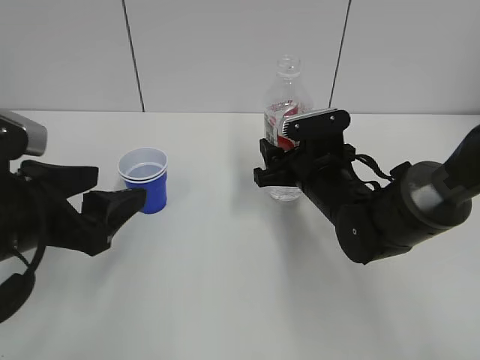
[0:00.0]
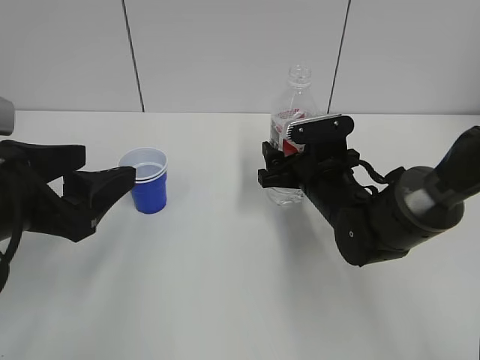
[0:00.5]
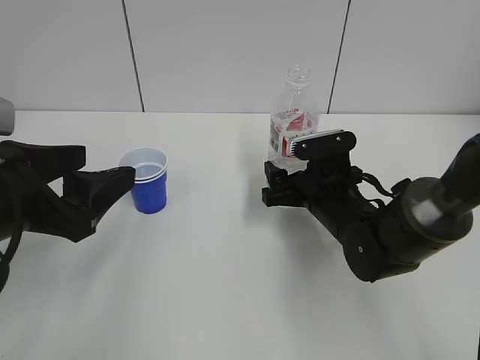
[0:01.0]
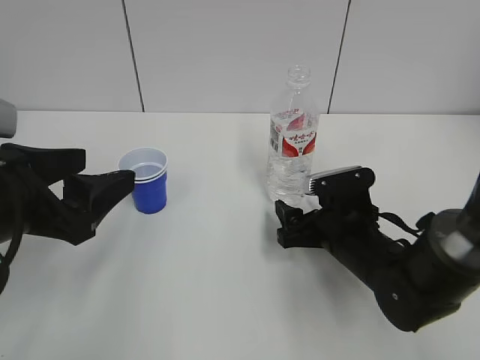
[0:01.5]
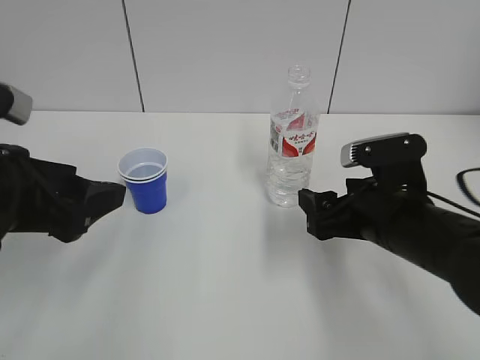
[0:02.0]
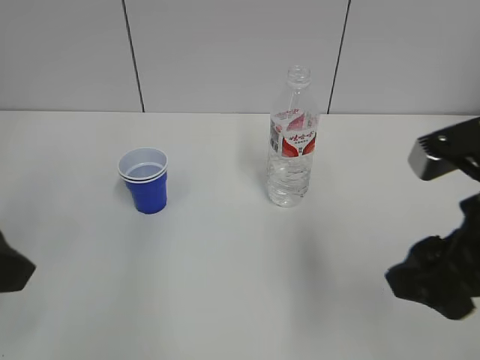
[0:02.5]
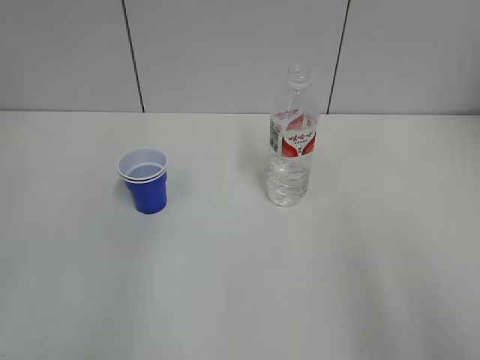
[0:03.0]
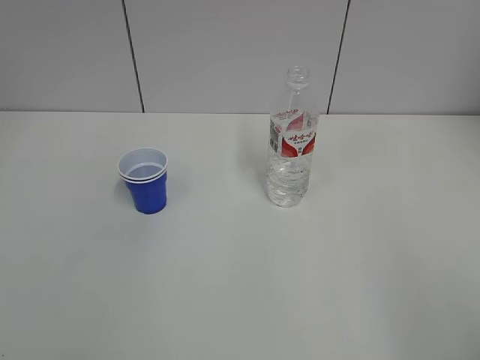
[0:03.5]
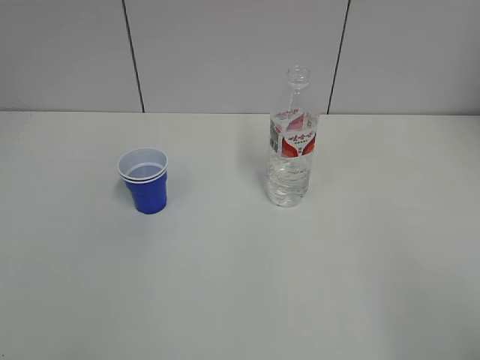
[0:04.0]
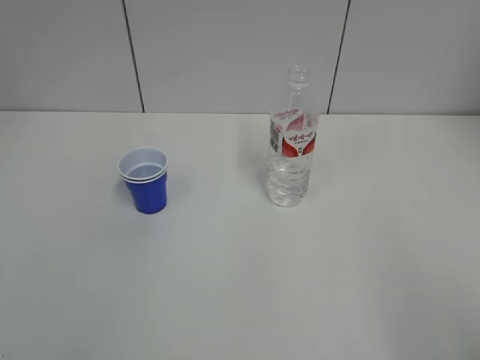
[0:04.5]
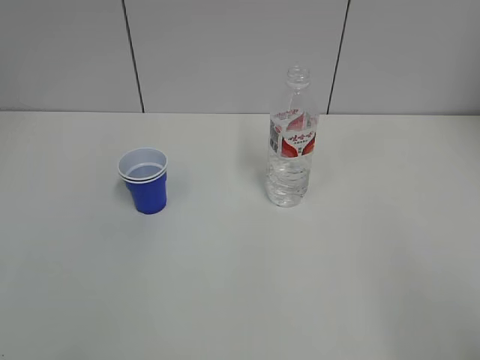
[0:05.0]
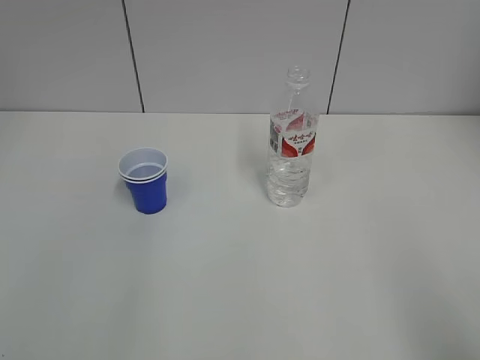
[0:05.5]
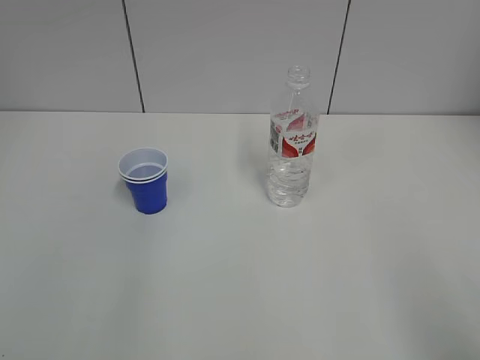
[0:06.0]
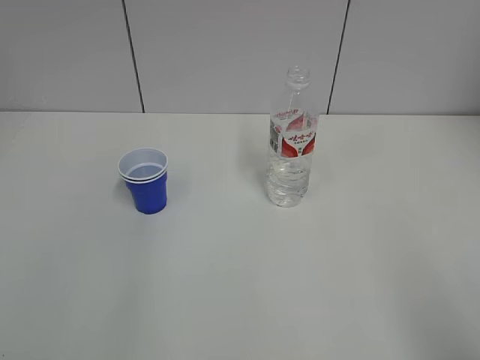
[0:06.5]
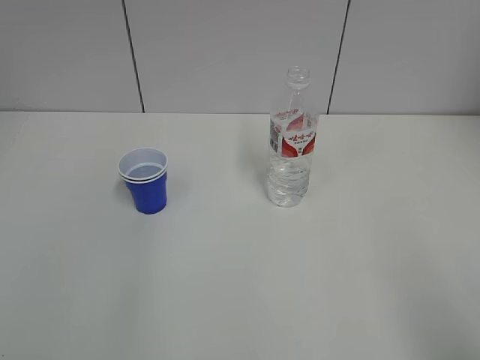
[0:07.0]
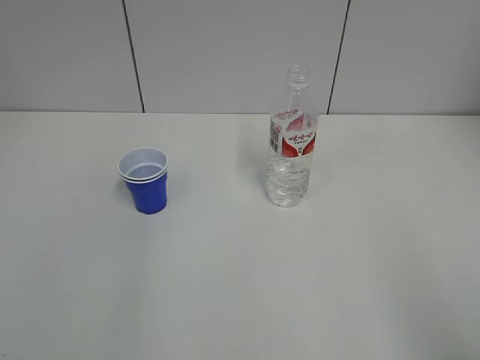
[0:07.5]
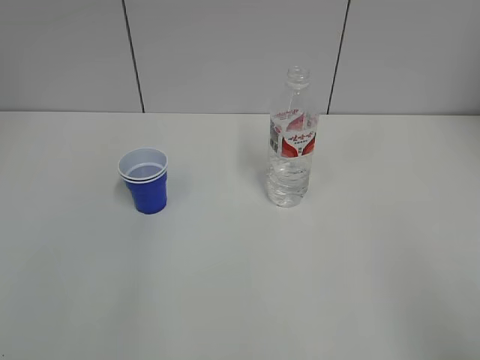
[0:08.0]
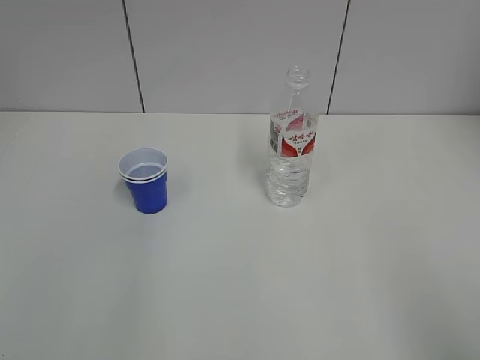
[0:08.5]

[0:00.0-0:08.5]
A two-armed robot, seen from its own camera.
0:00.0 to 0:02.0: The right gripper heads backward, covering some 10 cm, and opens.
0:02.0 to 0:04.0: The right gripper travels backward, to the right and upward by roughly 30 cm, while the left gripper moves backward and to the left, about 20 cm.
0:06.5 to 0:08.5: Both grippers stay put.

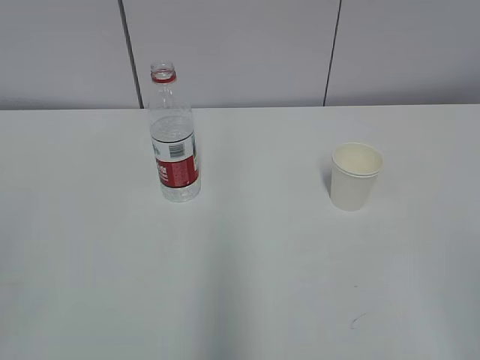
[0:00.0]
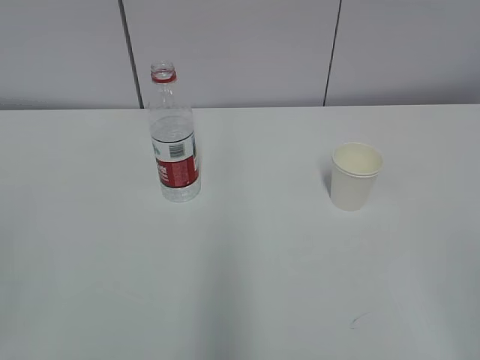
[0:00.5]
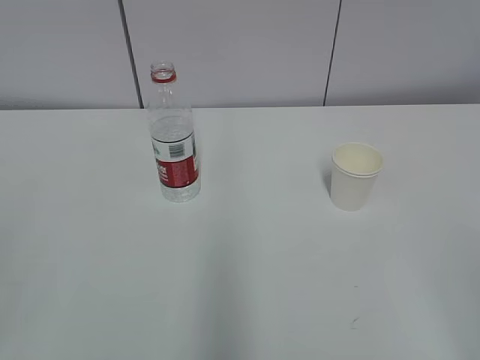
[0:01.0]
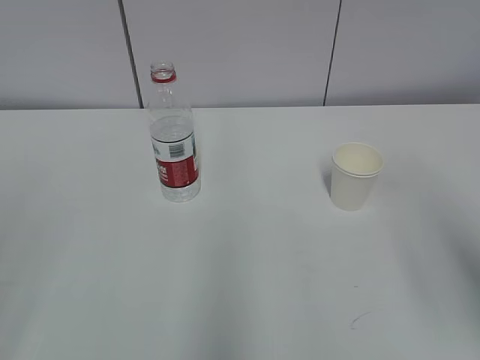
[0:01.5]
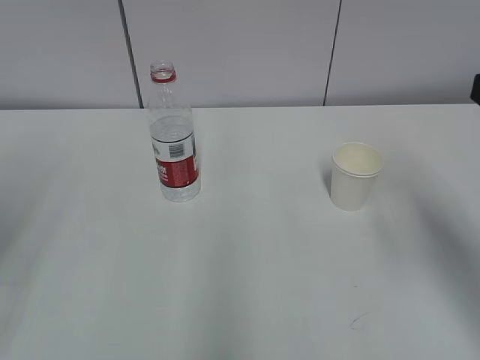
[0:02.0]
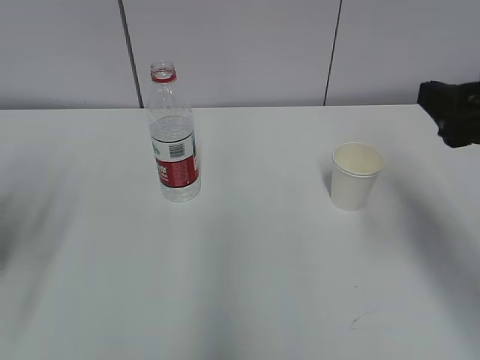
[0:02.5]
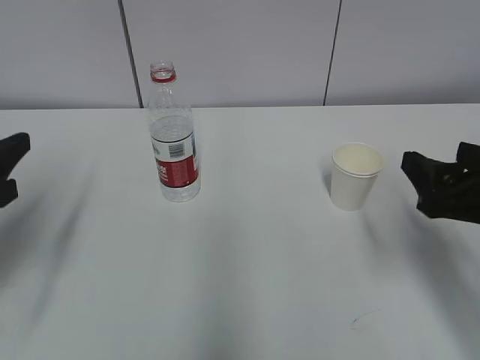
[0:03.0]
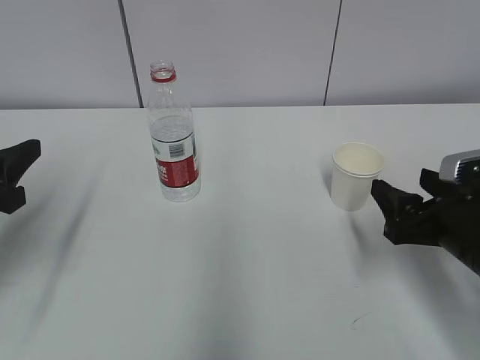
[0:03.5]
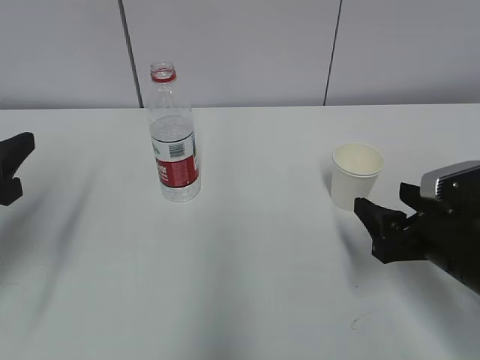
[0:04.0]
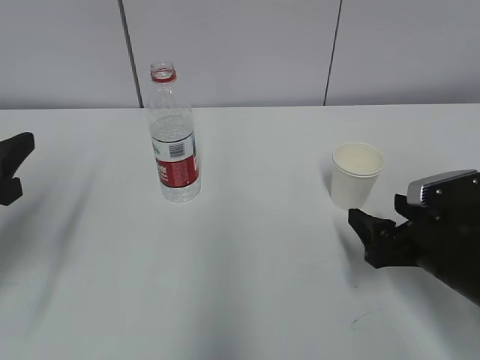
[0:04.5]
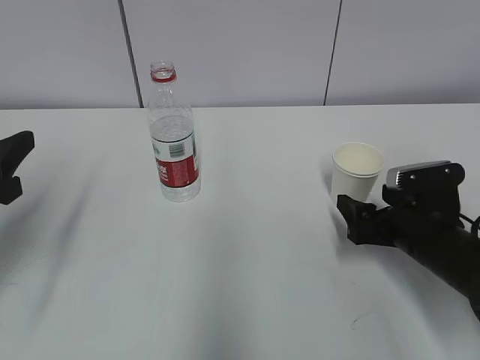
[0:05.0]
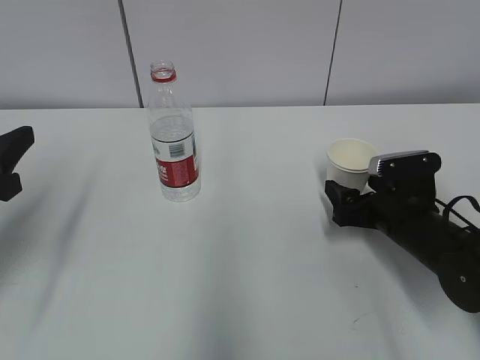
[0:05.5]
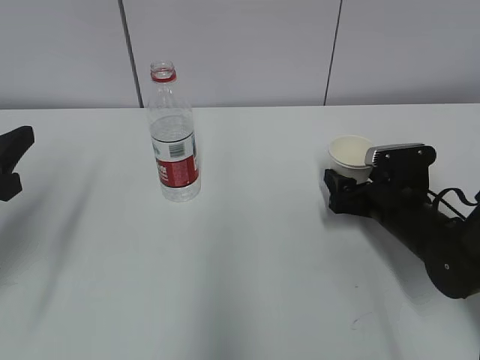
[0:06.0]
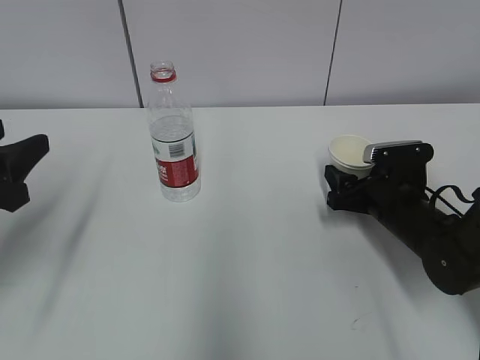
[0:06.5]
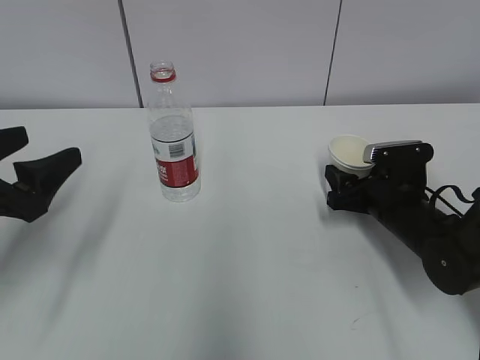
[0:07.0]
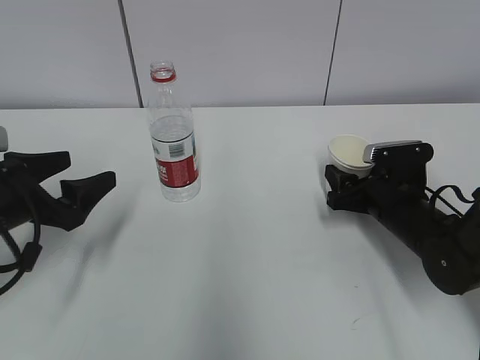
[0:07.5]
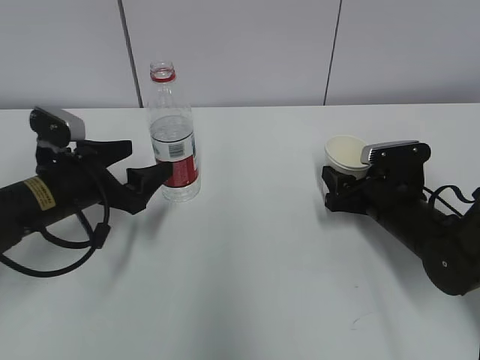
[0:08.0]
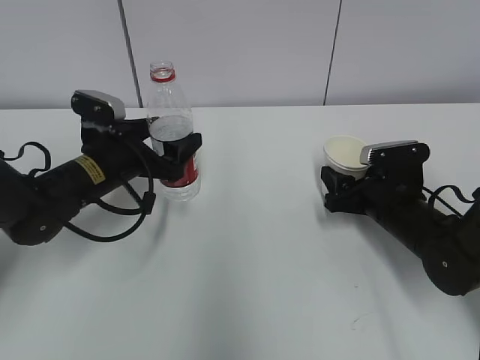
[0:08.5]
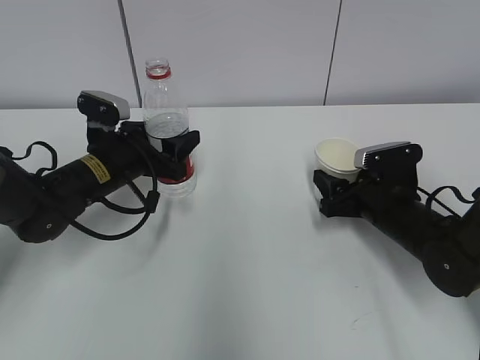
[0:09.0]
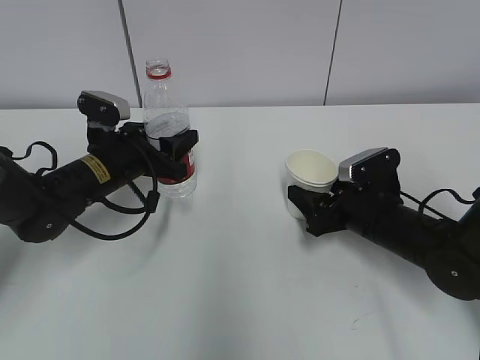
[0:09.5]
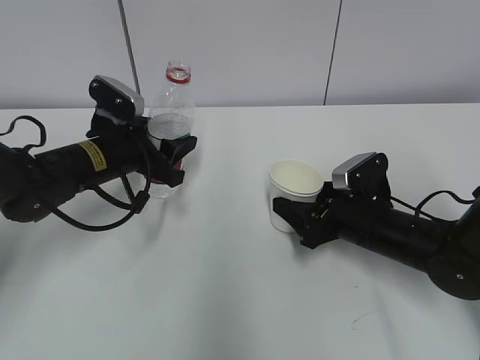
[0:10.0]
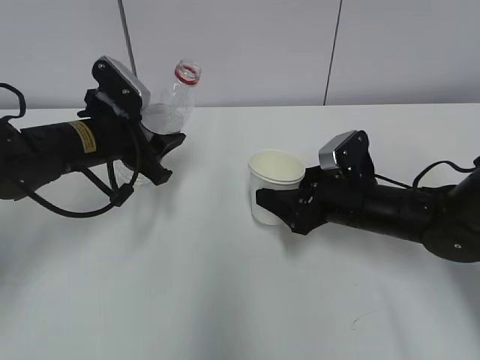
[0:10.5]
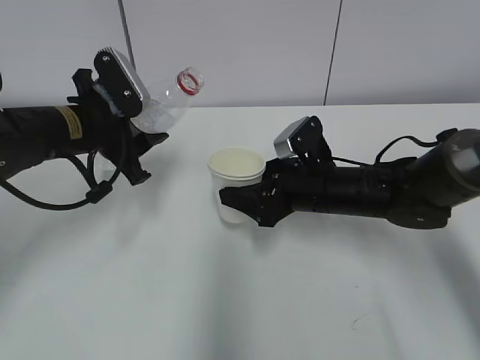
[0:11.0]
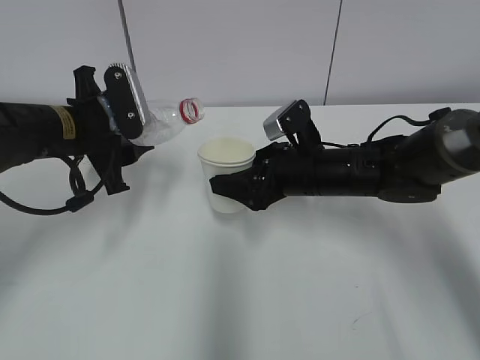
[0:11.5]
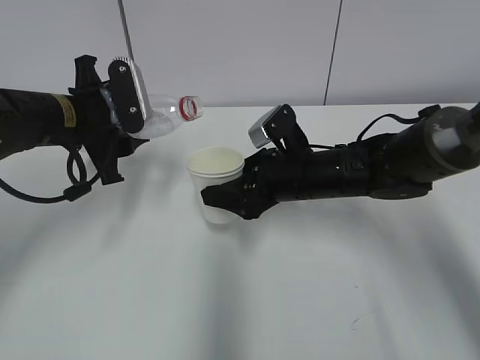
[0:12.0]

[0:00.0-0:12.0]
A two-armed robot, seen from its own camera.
Step, 0:00.0 to 0:07.0: Grab the paper cup with the right hand.
Step, 0:08.0 to 0:11.5: Lift the paper cup with the right hand.
0:02.0 to 0:04.0: The left gripper is displaced downward and forward by approximately 15 cm; the right gripper travels downward by roughly 20 cm.
0:04.0 to 0:06.0: The right gripper shifts roughly 10 cm forward and downward, and opens.
0:06.0 to 0:08.0: The left gripper goes some 15 cm forward, downward and to the right, and opens, while the right gripper closes its fingers.
0:08.0 to 0:10.0: The left gripper moves forward, some 5 cm, and closes its fingers.
0:10.0 to 0:12.0: The right gripper heads to the left and upward, covering roughly 10 cm, while the left gripper goes approximately 5 cm upward.

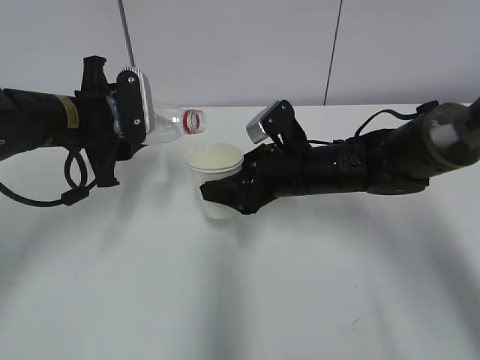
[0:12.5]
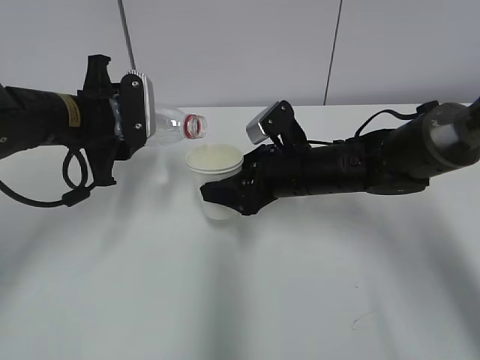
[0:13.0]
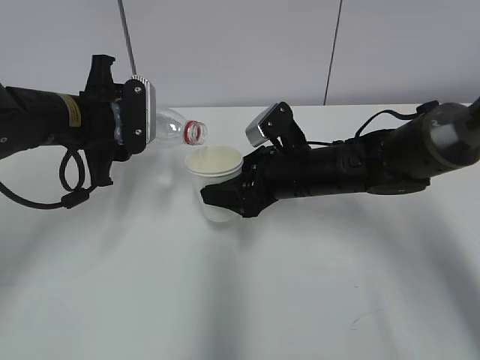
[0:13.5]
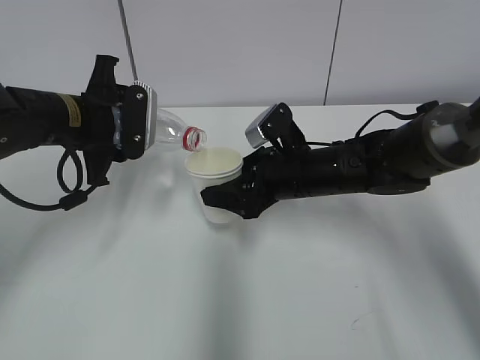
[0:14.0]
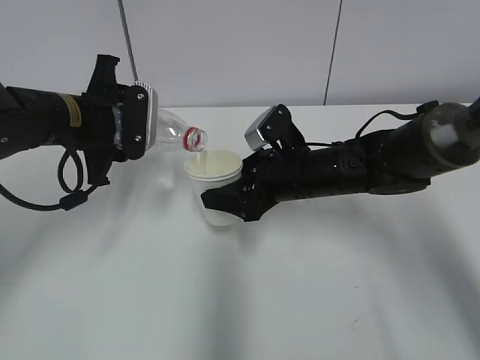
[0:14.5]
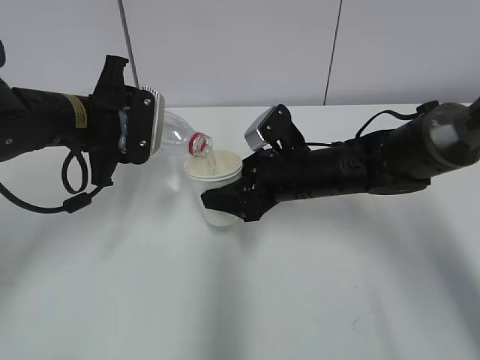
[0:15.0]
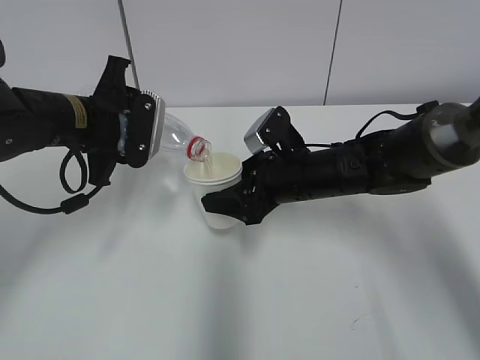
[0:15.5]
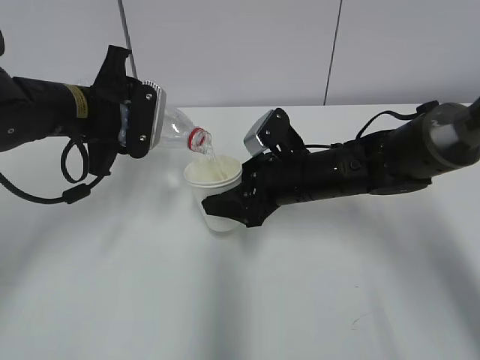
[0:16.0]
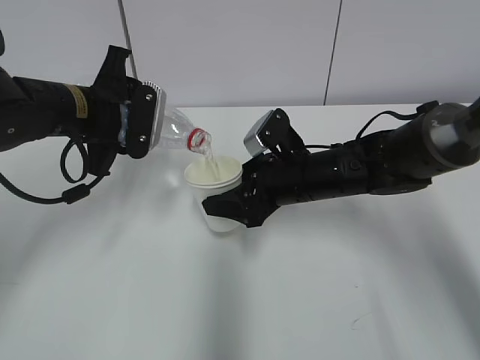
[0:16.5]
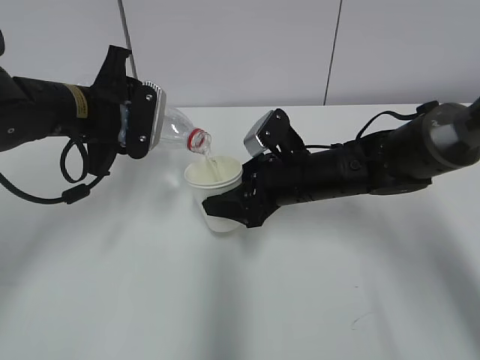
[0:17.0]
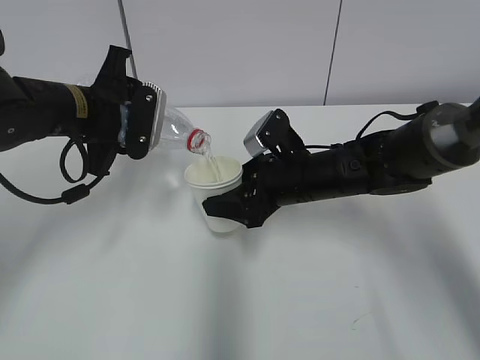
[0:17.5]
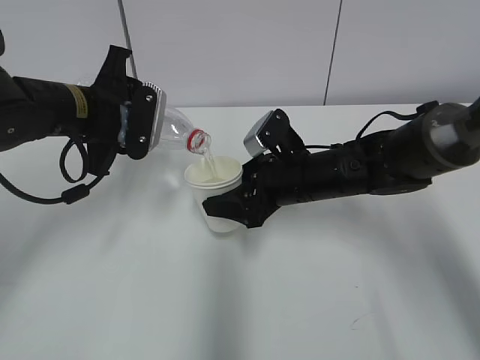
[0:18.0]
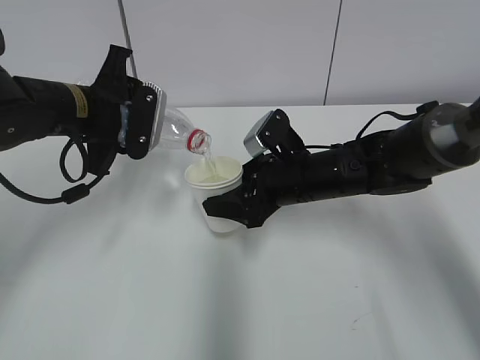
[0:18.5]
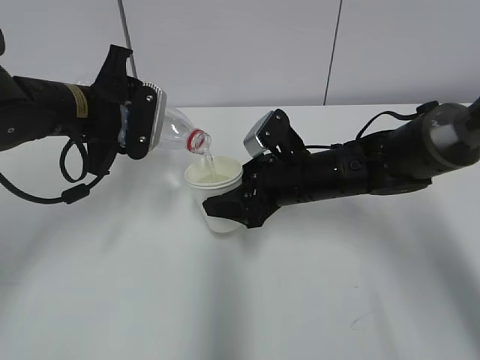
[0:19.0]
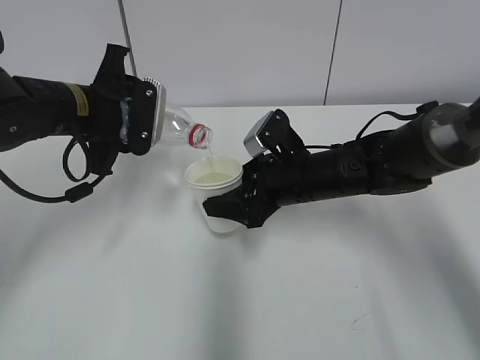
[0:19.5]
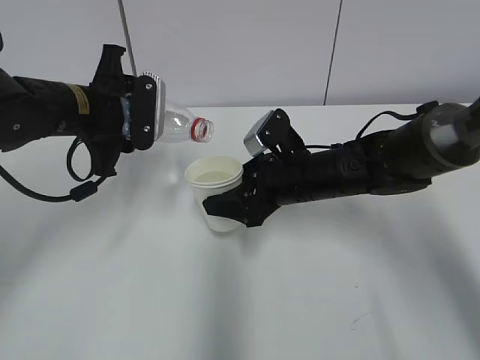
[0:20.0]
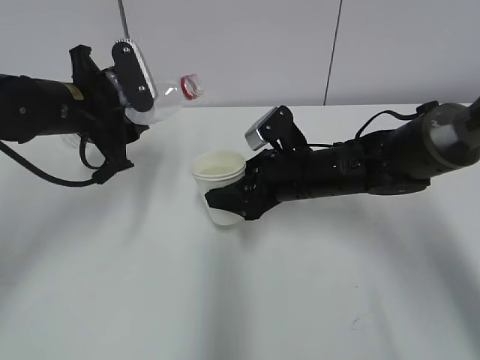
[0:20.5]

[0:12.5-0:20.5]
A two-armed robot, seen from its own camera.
Step, 0:12.5 to 0:16.5: Fill water with the right hand.
Step, 0:12.5 to 0:16.5: Pour water with the left hand.
0:12.5 to 0:16.5: The grippers make only small movements.
0:16.5 to 0:18.5: The two grippers keep their place.
